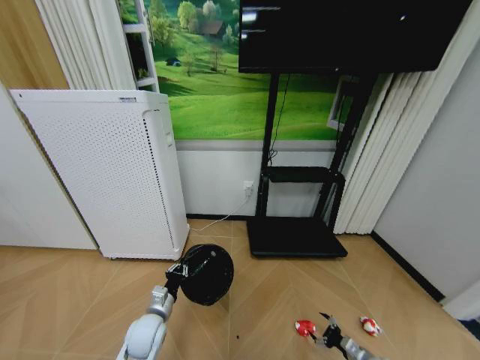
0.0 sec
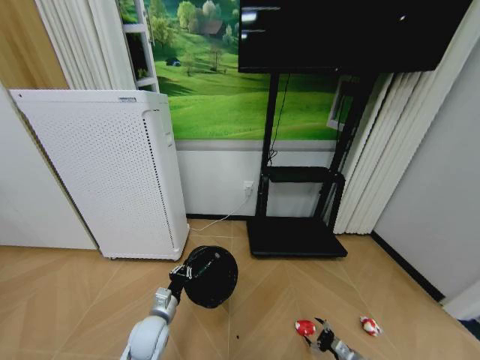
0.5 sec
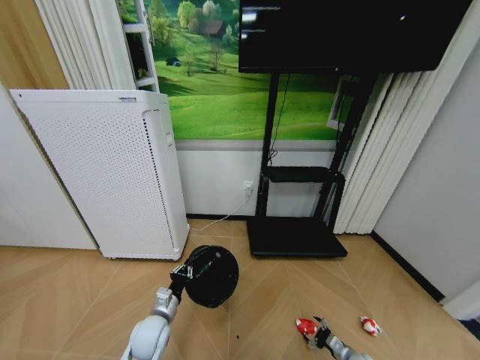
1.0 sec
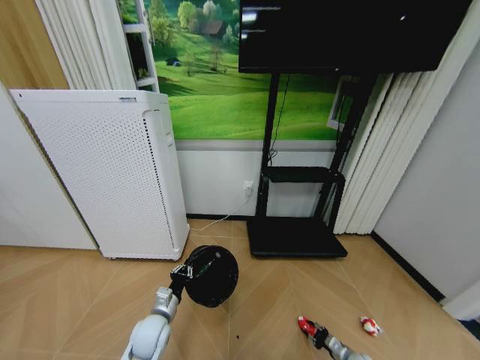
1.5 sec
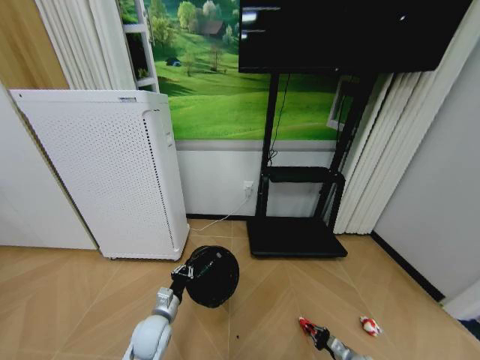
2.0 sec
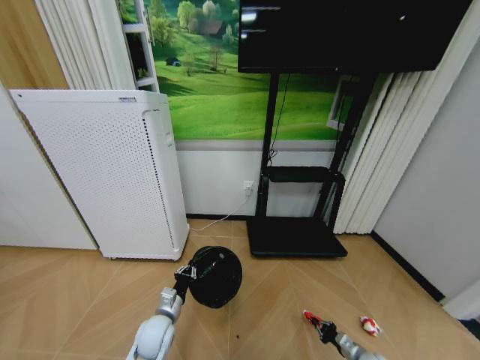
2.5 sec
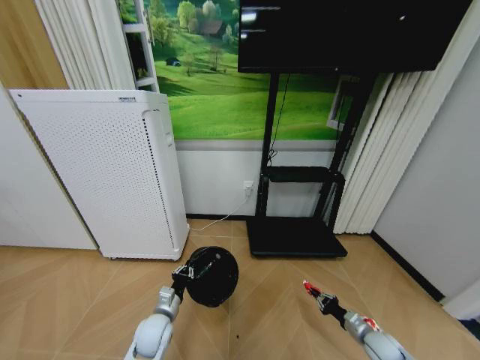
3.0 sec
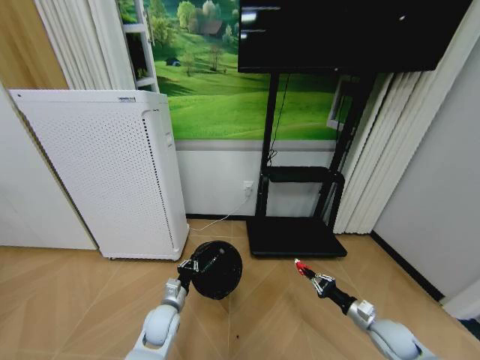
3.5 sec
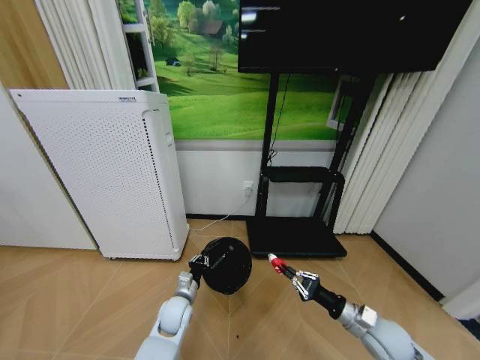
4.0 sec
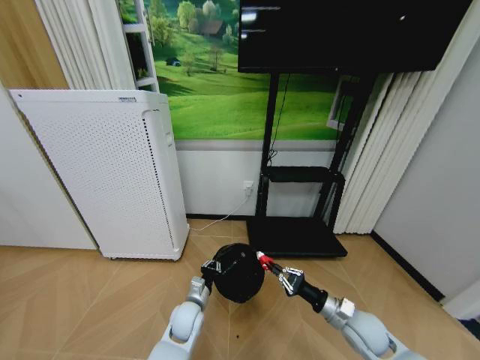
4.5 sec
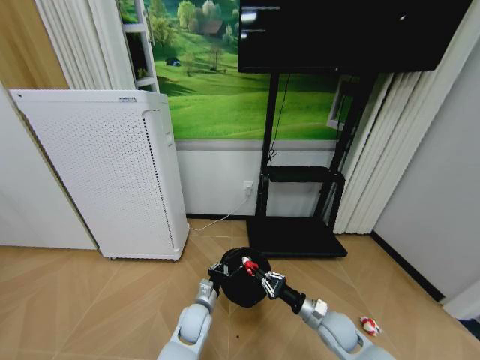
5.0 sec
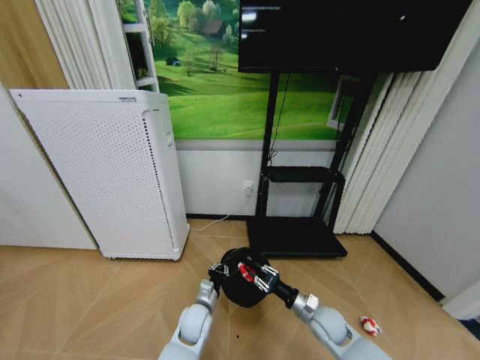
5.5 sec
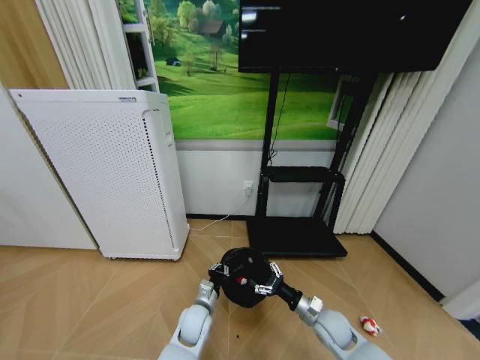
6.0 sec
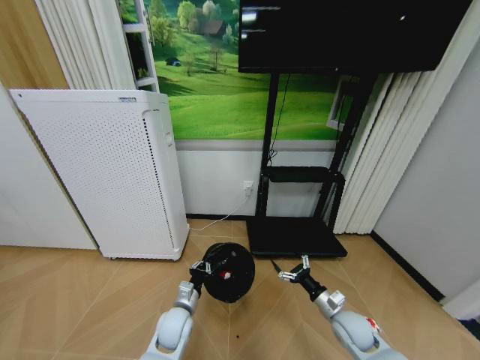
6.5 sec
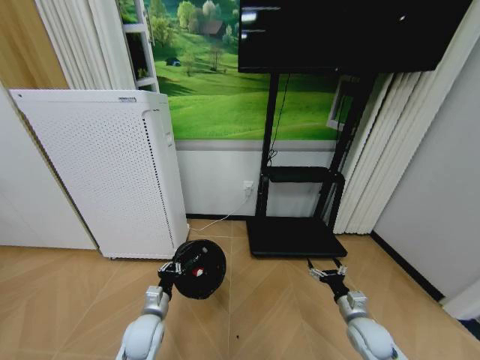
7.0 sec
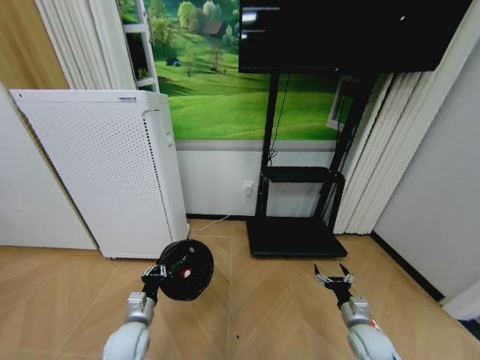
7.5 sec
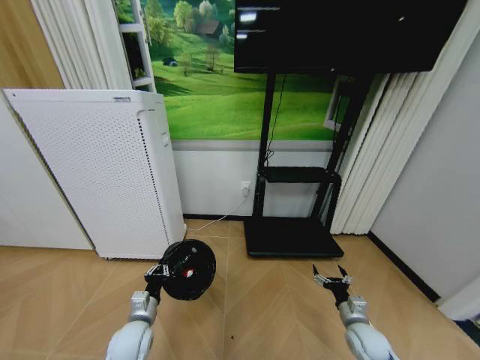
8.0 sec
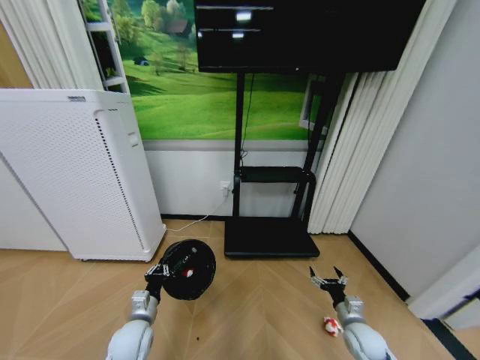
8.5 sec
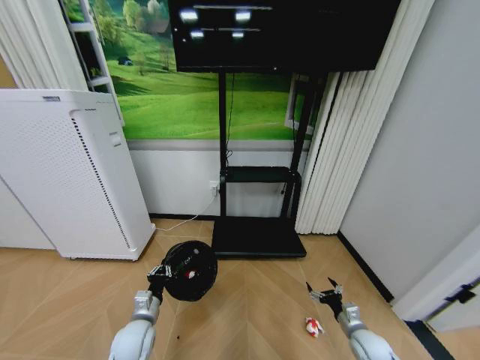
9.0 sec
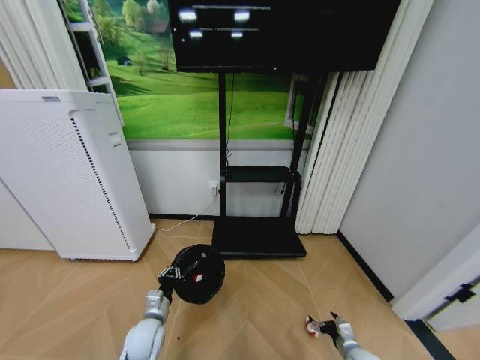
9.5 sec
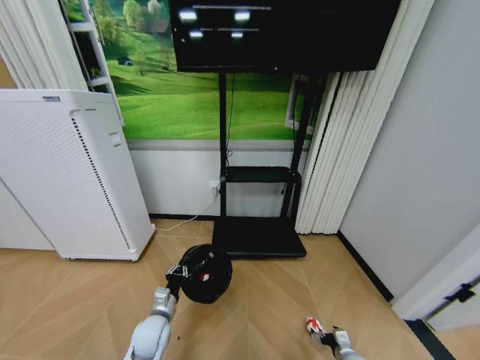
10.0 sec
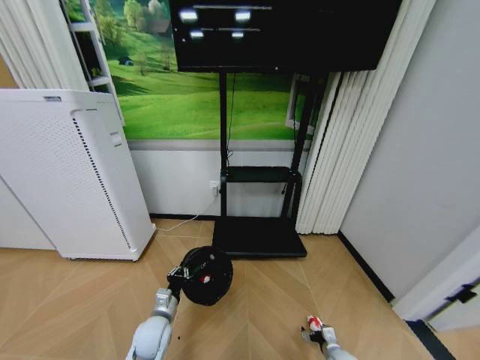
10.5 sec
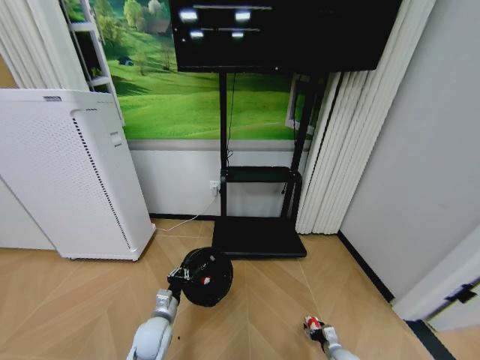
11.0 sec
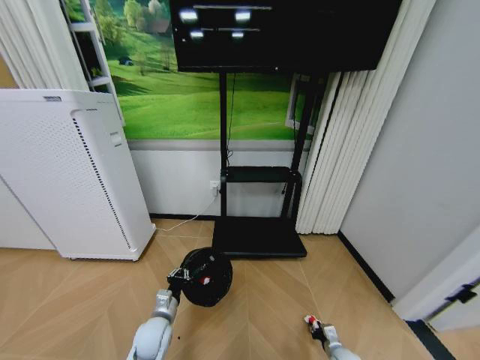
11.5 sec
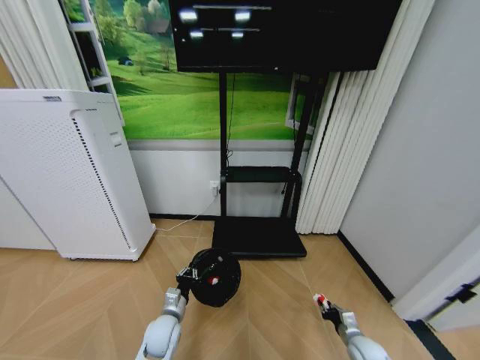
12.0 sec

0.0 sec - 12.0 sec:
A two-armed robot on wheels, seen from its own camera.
Task of the whole recording: Pick up the trash bin and place the garbage on the floor into it.
0.0 sec - 2.0 sec: The right gripper travels downward by approximately 5 cm, and closes its fingers.
2.0 sec - 4.0 sec: The right gripper travels upward by approximately 25 cm. Meanwhile the left gripper moves forward, approximately 5 cm.
4.0 sec - 6.0 sec: The right gripper goes roughly 10 cm to the left and downward, and opens its fingers; the left gripper heads to the right, covering about 5 cm.
6.0 sec - 8.0 sec: The right gripper moves to the right, about 10 cm, while the left gripper moves to the left, some 15 cm.
8.0 sec - 10.0 sec: The right gripper moves downward, roughly 15 cm.
10.0 sec - 12.0 sec: The right gripper moves roughly 5 cm, and closes its fingers.

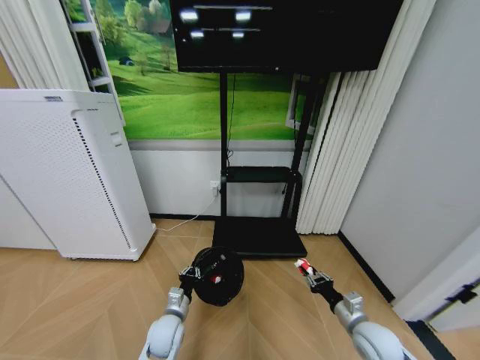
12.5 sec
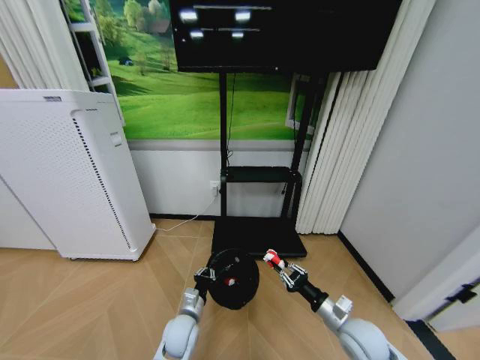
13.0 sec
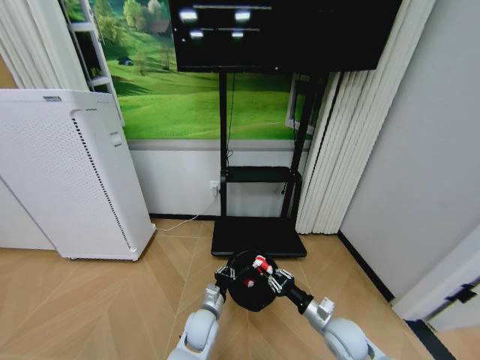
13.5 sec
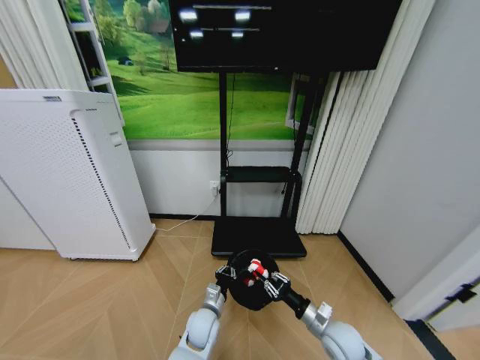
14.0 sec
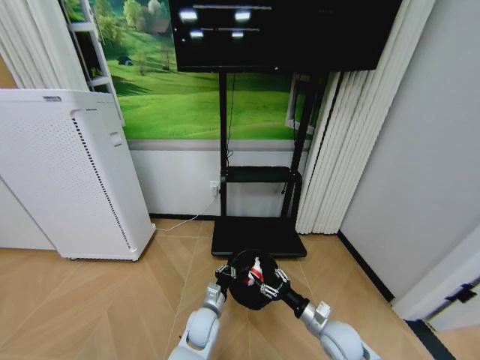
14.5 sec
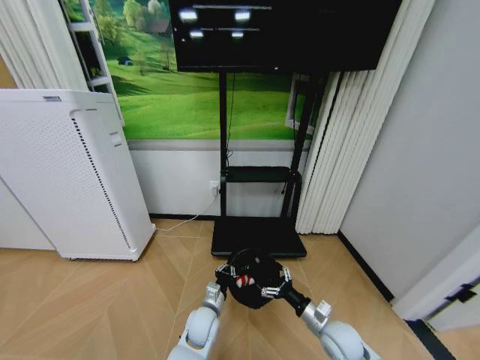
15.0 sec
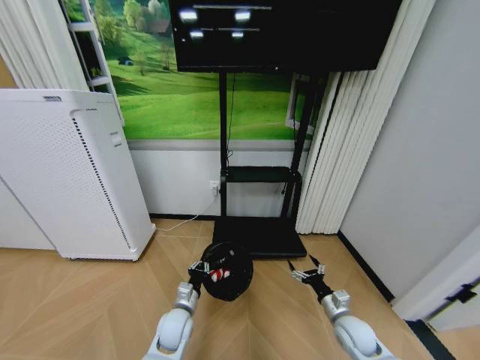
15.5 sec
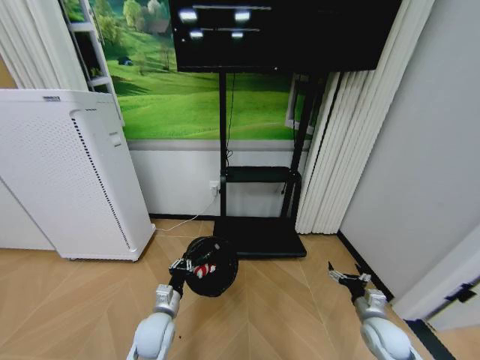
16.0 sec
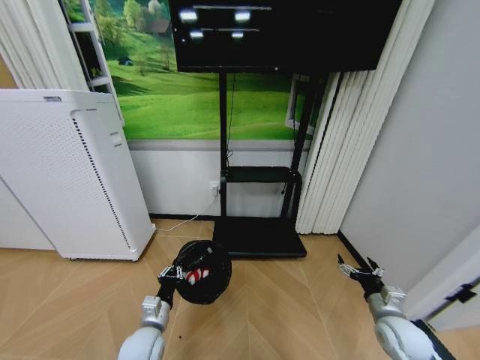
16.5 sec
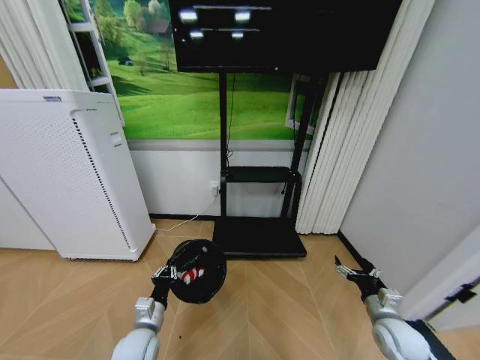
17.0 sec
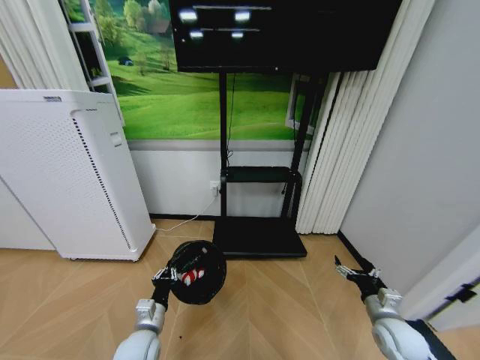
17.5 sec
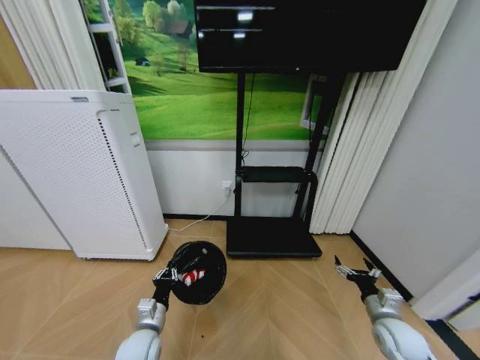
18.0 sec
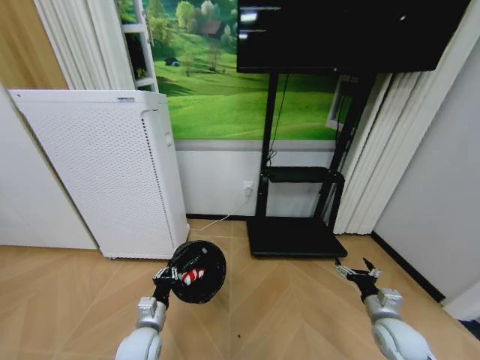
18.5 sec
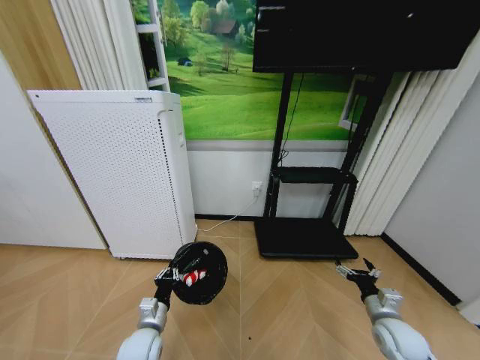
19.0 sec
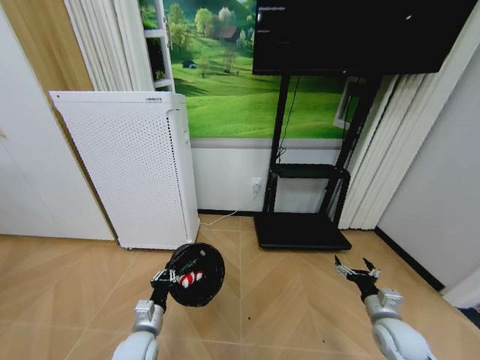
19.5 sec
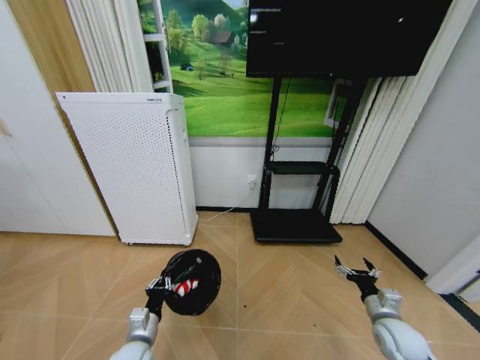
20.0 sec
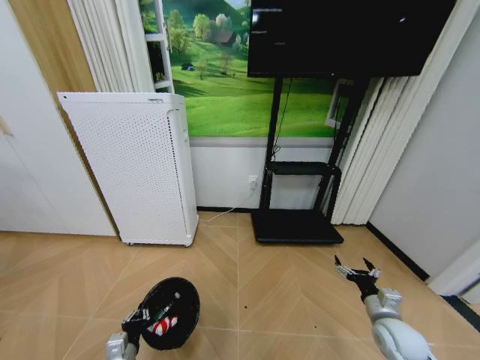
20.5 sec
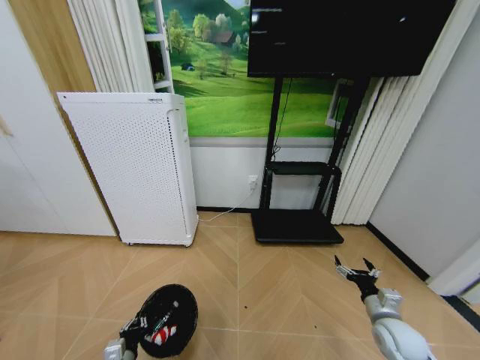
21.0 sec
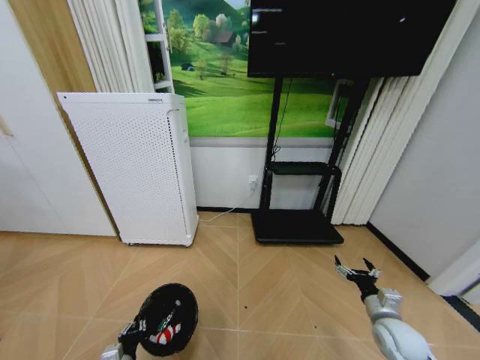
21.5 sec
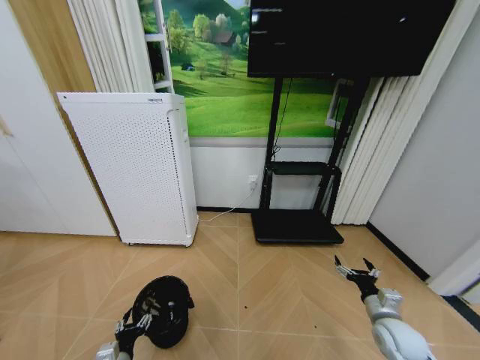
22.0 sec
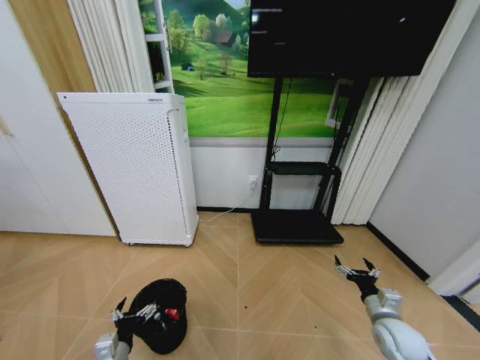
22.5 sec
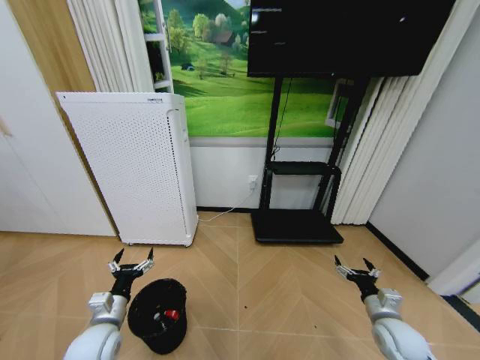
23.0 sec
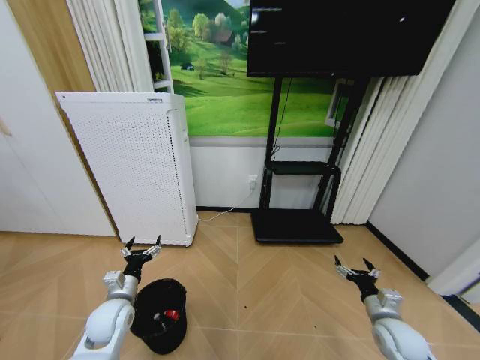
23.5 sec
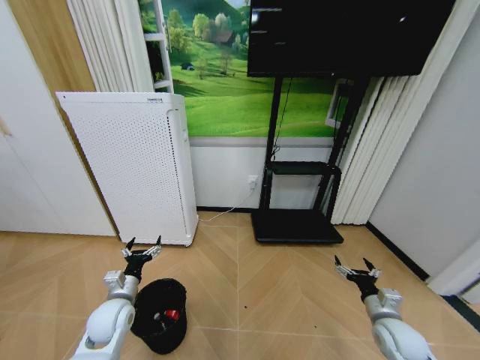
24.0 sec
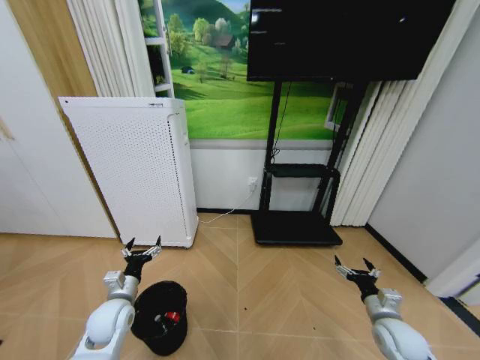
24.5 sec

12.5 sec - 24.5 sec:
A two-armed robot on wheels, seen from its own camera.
Task of the whole recording: Pick up the trash bin and place the garbage on the floor into it.
12.5 sec - 14.5 sec: The left gripper shifts roughly 10 cm to the right. Meanwhile the right gripper shifts roughly 10 cm to the left, and opens.
14.5 sec - 16.5 sec: The right gripper is displaced to the right by roughly 15 cm, and opens its fingers. Meanwhile the left gripper travels to the left, backward and upward by about 15 cm.
18.5 sec - 20.5 sec: The left gripper heads backward and to the left, covering some 10 cm.
20.5 sec - 22.5 sec: The left gripper opens its fingers.
22.5 sec - 24.5 sec: The left gripper heads forward and upward, covering approximately 15 cm.

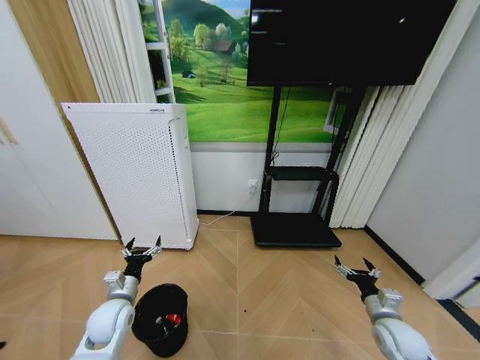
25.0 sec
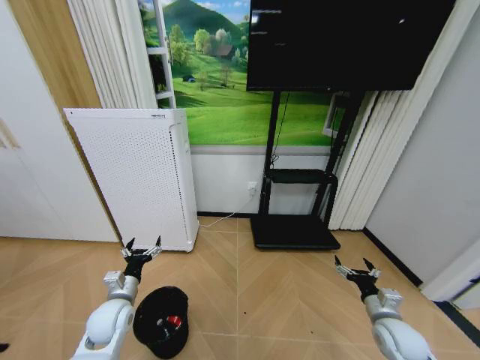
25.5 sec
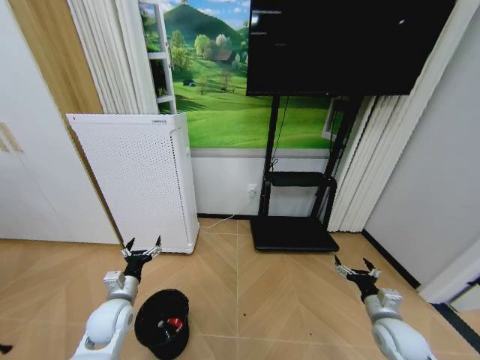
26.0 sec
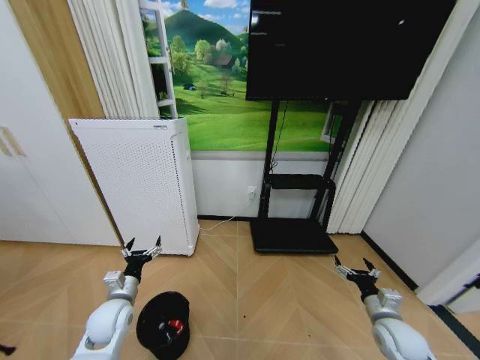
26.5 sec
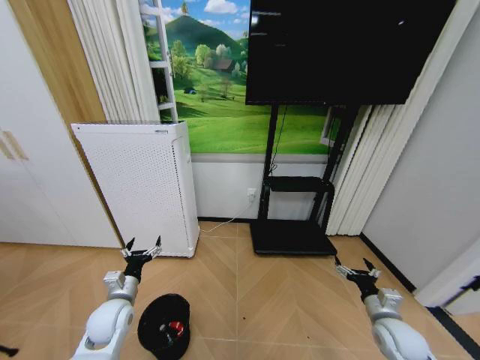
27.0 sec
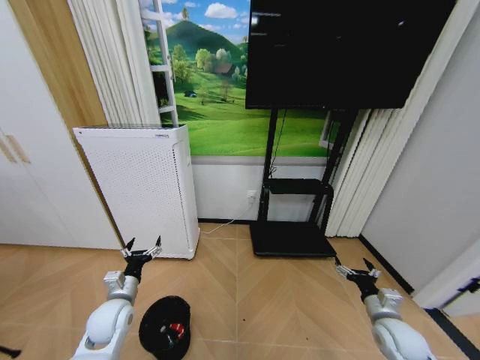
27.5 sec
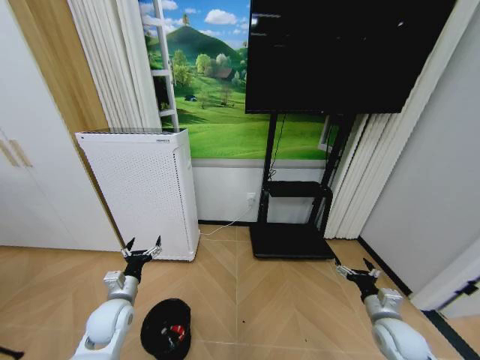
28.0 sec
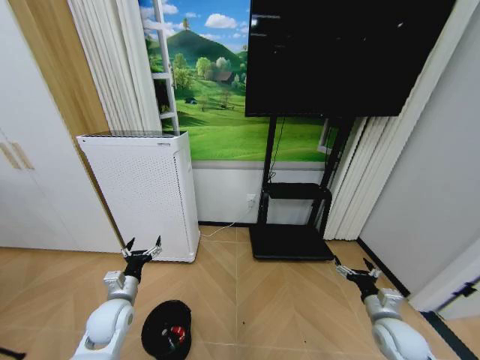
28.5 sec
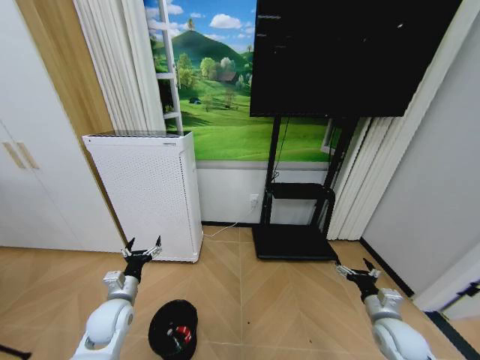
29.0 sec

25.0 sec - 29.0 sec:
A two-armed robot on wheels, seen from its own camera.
Task of the whole recording: Pick up the trash bin and place the garbage on the floor into it.
25.0 sec - 29.0 sec: The two grippers keep their place.
